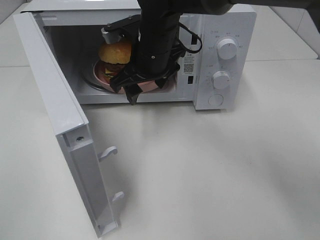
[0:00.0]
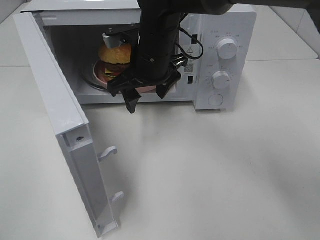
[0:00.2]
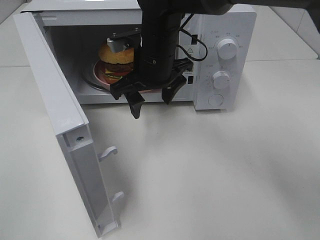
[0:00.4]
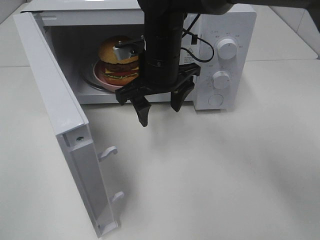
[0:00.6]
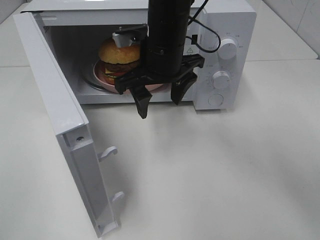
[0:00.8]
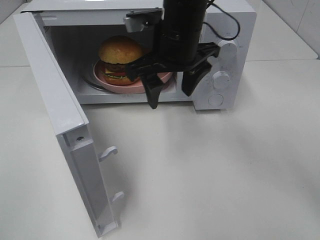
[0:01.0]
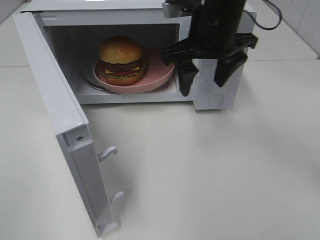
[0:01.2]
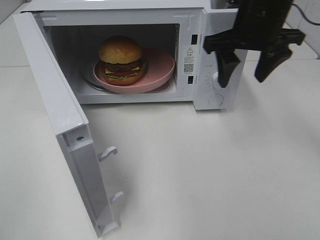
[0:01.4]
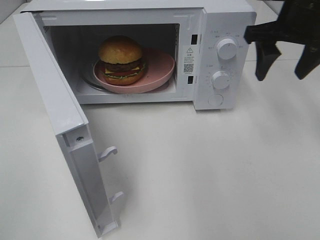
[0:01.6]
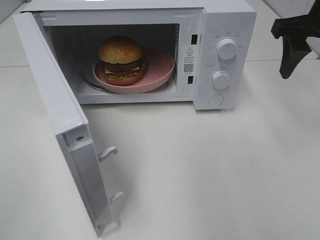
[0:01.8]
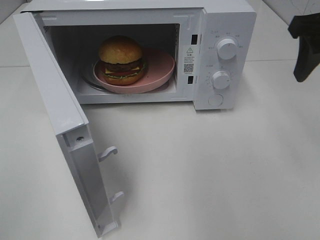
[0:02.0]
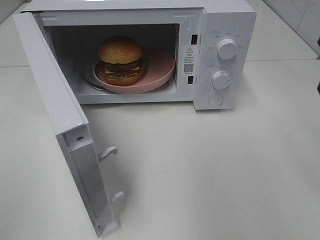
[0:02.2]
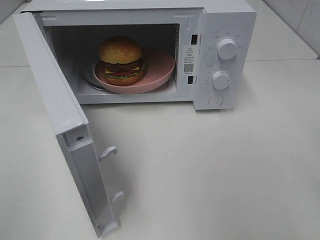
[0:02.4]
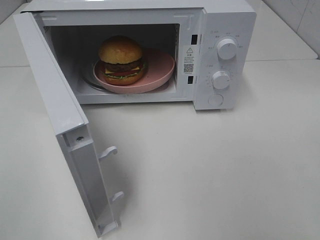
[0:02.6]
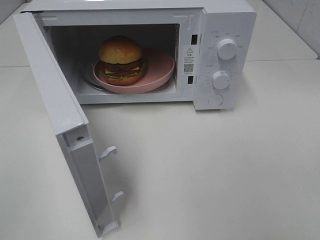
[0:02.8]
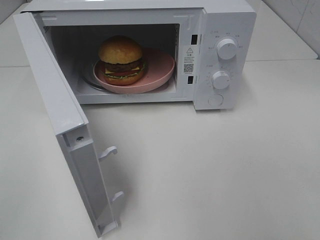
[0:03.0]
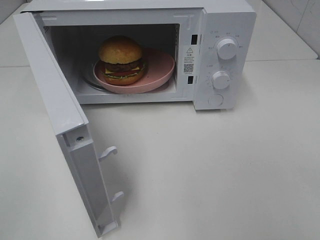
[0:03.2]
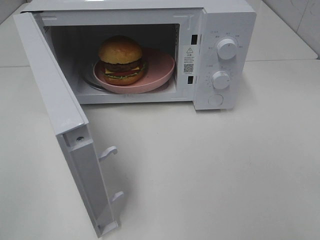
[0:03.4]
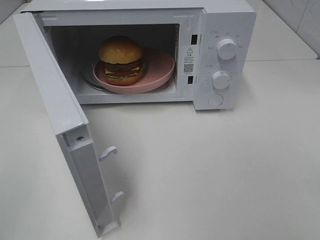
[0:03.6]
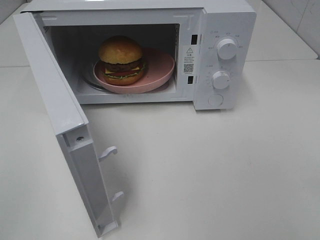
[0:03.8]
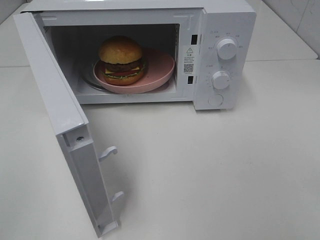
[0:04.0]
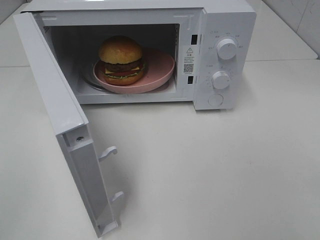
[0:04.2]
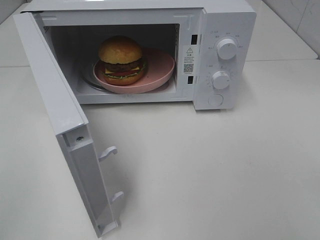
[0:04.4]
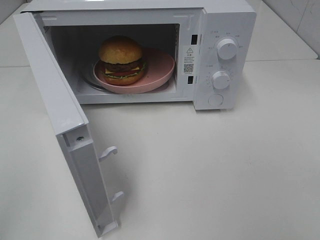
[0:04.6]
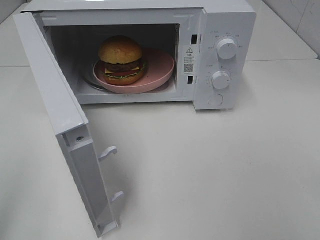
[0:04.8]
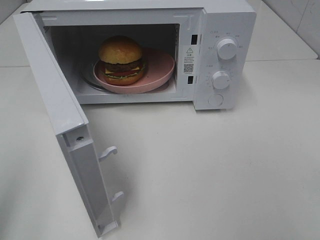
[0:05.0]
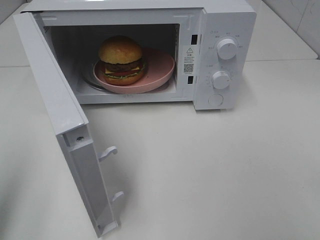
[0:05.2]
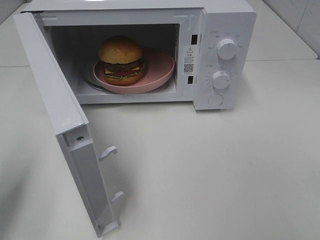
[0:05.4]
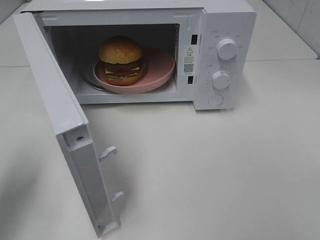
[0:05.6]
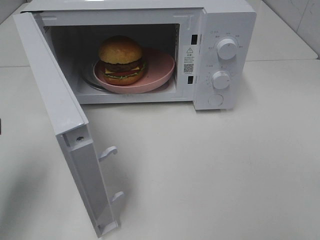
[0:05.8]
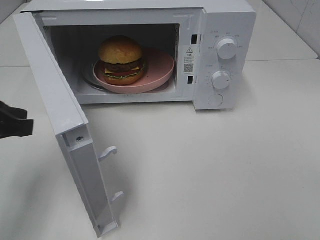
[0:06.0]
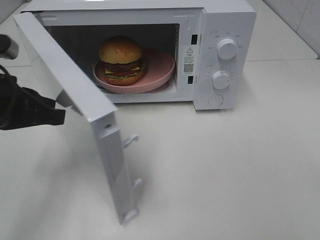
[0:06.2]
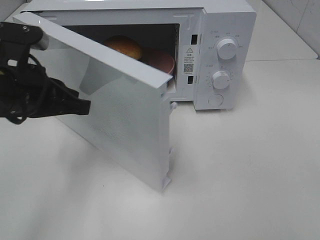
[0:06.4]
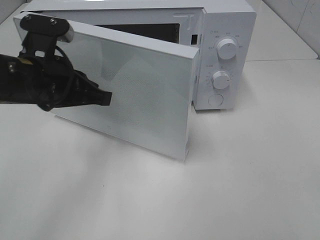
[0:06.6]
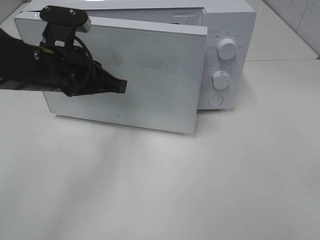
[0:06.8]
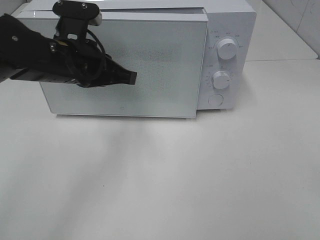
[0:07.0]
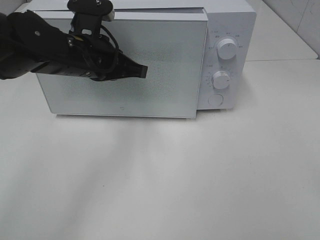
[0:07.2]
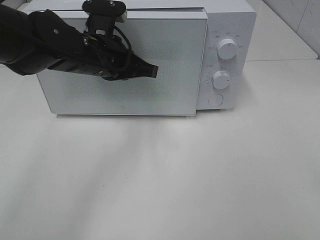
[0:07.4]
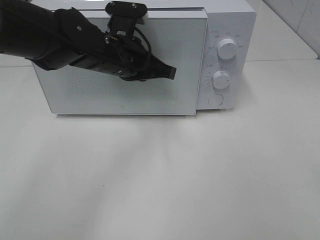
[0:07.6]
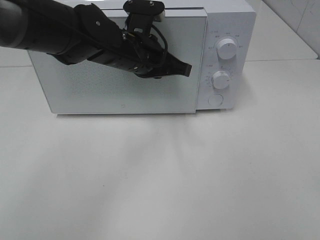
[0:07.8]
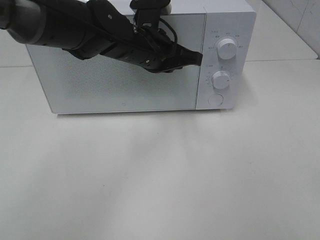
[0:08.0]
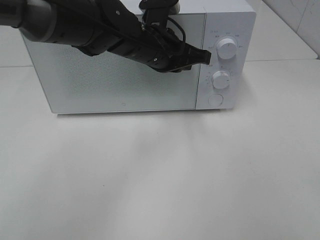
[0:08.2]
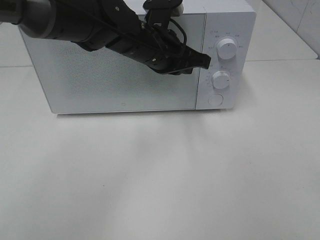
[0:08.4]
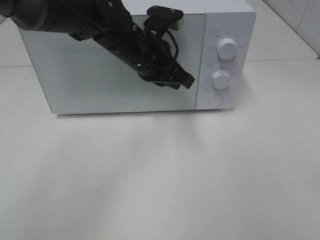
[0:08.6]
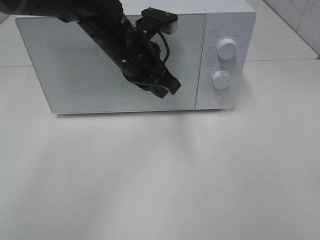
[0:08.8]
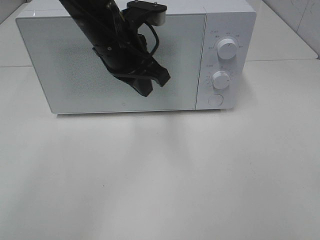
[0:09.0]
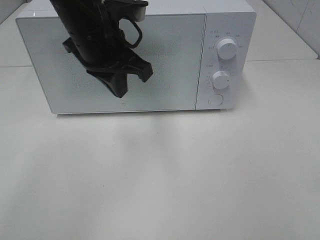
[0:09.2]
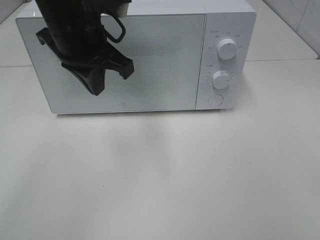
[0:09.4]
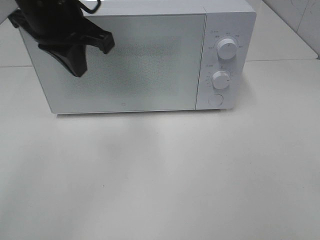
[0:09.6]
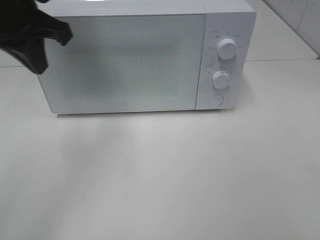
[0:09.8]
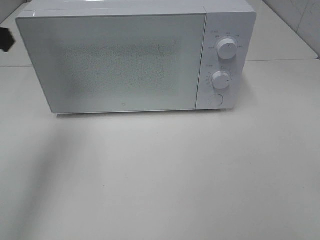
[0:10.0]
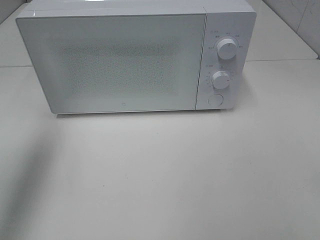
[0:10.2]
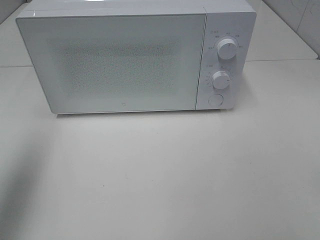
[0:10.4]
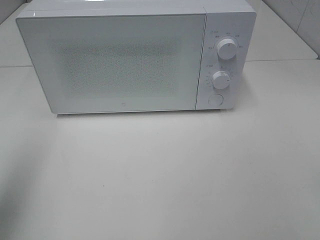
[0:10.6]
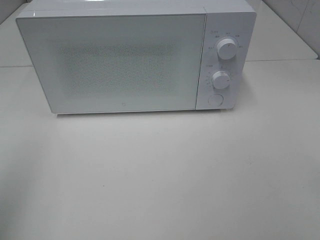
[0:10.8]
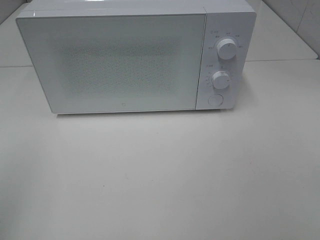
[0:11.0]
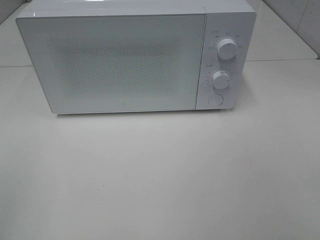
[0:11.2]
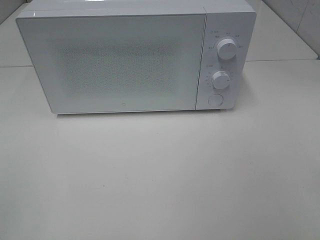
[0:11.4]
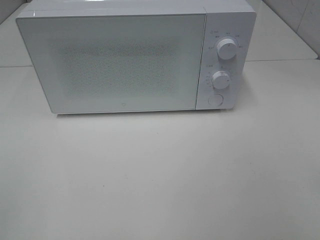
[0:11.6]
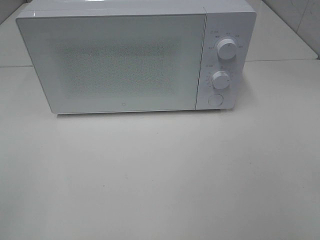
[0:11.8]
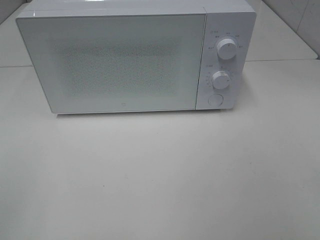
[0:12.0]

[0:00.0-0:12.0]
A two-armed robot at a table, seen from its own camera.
Task of the whole recording: Heat the burger.
Step, 0:00.0 to 0:08.2: Left hand: close the microwave door.
0:00.0 to 0:01.6: The right gripper shifts roughly 25 cm to the right.
0:01.6 to 0:03.0: The right gripper moves backward, roughly 30 cm.
0:04.4 to 0:06.0: The left gripper is displaced forward by approximately 20 cm.
0:06.0 to 0:07.6: The left gripper travels to the right and forward by roughly 25 cm.
0:07.6 to 0:09.0: The left gripper changes place by roughly 5 cm.
0:09.0 to 0:10.4: The left gripper heads to the left and backward, covering about 30 cm.
0:10.4 to 0:12.0: The left gripper shifts some 20 cm backward.

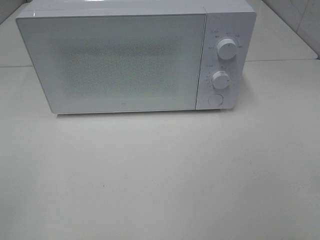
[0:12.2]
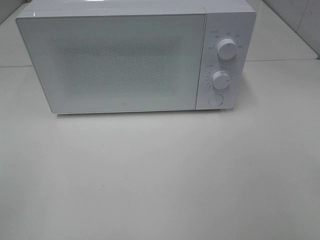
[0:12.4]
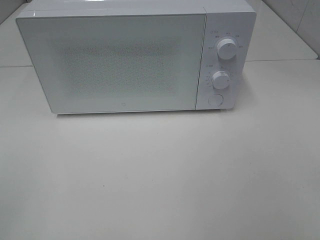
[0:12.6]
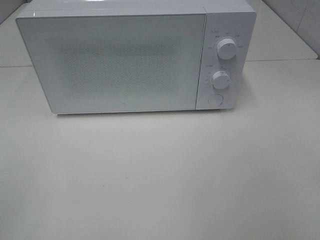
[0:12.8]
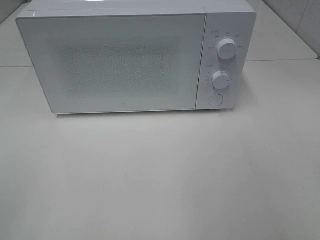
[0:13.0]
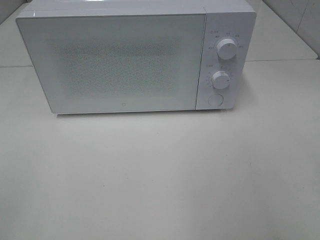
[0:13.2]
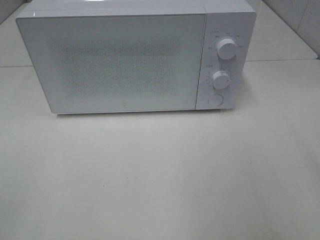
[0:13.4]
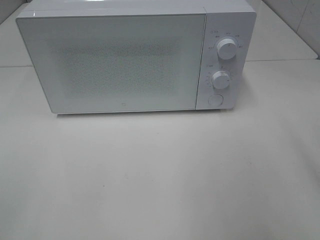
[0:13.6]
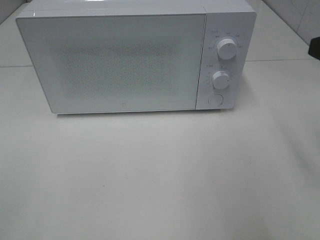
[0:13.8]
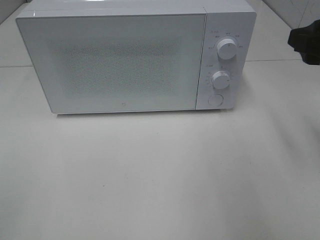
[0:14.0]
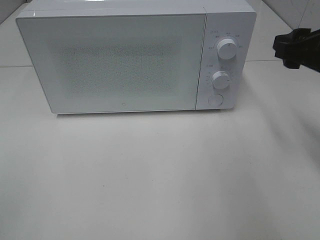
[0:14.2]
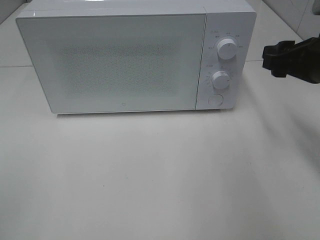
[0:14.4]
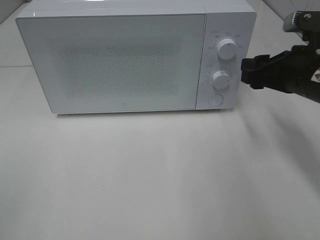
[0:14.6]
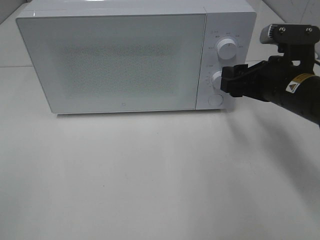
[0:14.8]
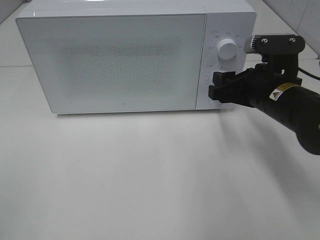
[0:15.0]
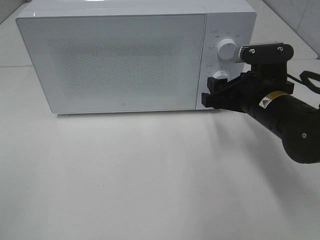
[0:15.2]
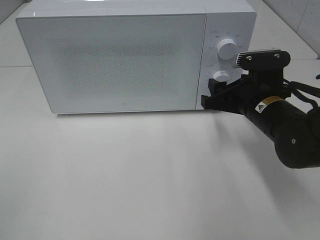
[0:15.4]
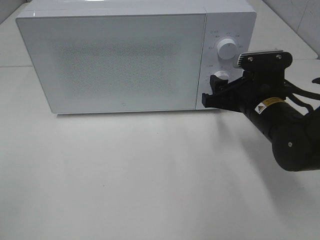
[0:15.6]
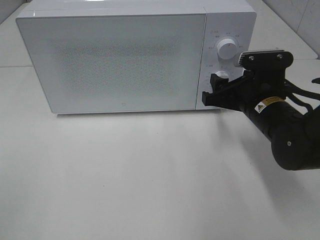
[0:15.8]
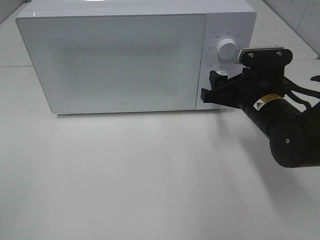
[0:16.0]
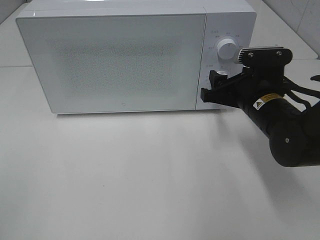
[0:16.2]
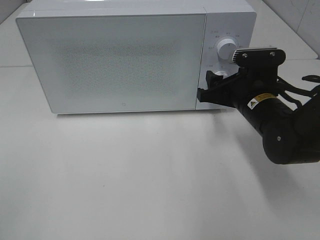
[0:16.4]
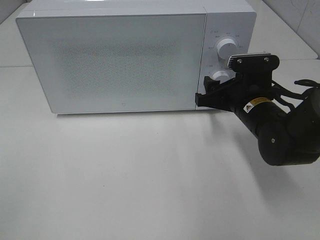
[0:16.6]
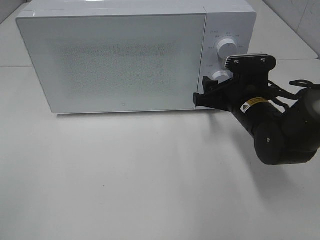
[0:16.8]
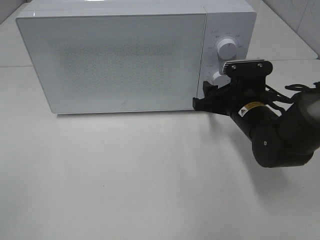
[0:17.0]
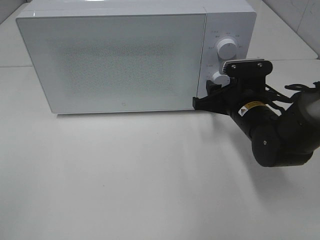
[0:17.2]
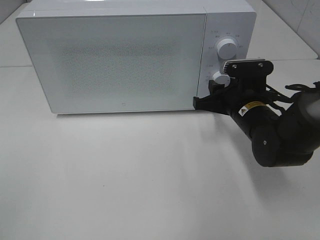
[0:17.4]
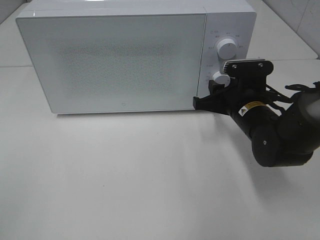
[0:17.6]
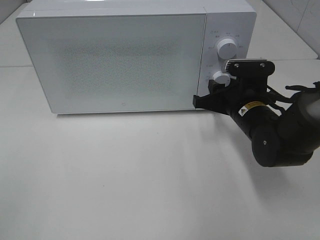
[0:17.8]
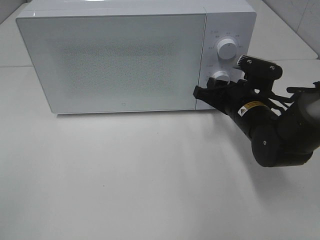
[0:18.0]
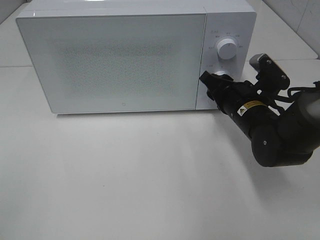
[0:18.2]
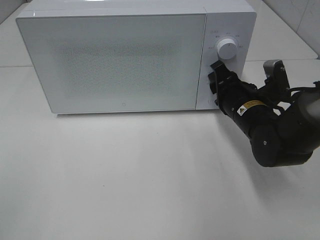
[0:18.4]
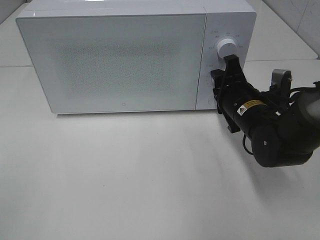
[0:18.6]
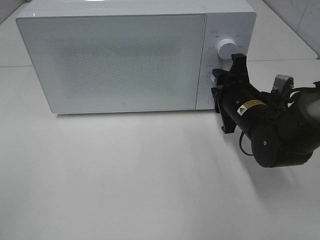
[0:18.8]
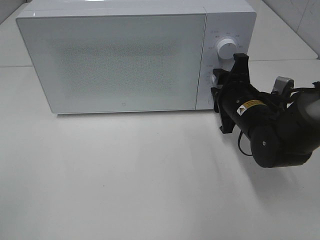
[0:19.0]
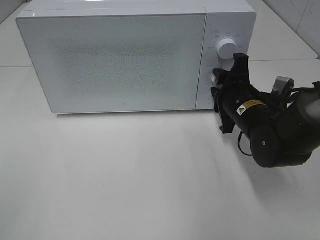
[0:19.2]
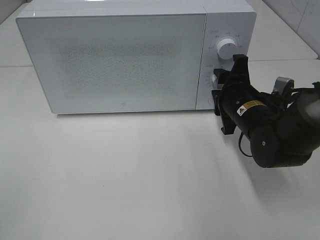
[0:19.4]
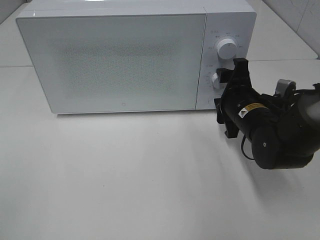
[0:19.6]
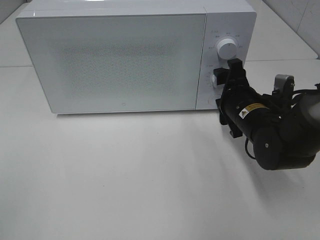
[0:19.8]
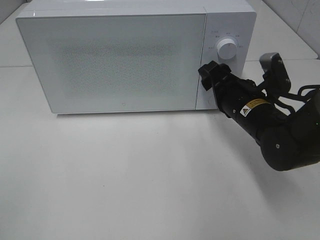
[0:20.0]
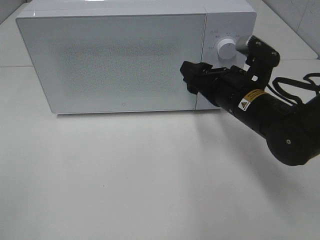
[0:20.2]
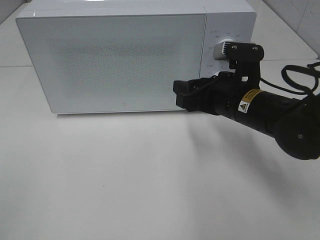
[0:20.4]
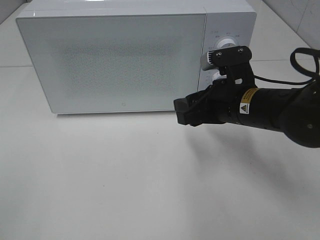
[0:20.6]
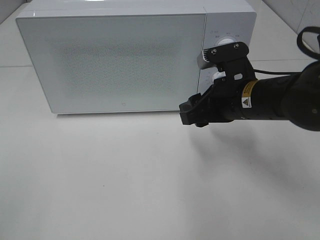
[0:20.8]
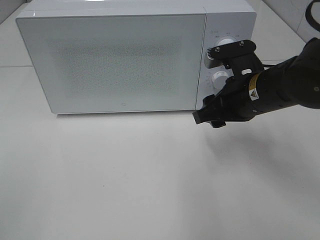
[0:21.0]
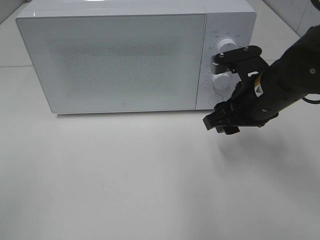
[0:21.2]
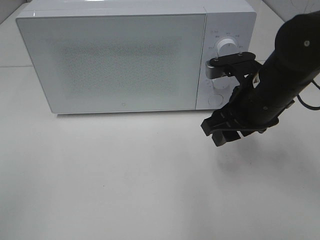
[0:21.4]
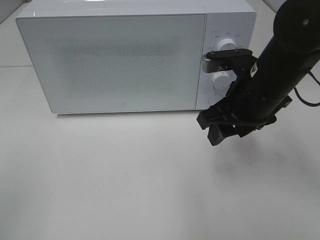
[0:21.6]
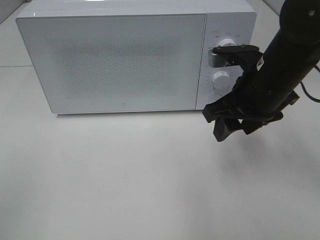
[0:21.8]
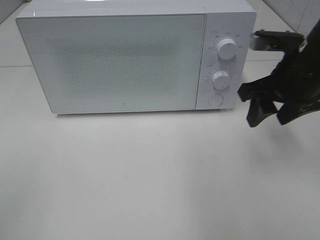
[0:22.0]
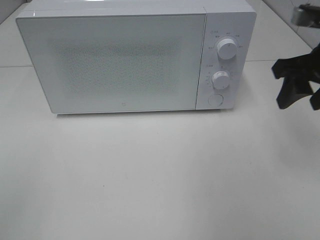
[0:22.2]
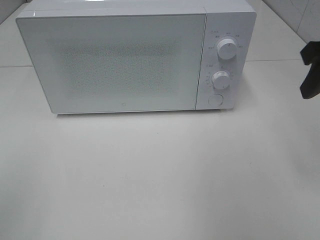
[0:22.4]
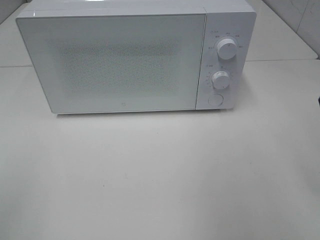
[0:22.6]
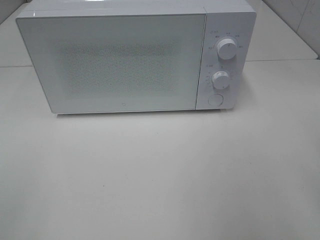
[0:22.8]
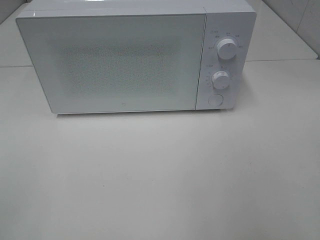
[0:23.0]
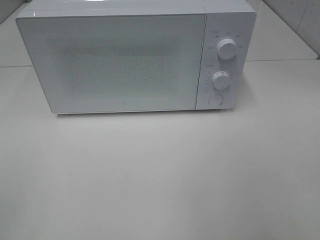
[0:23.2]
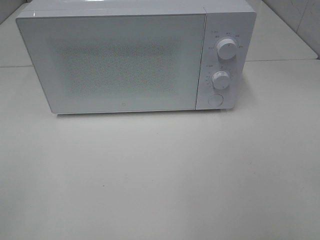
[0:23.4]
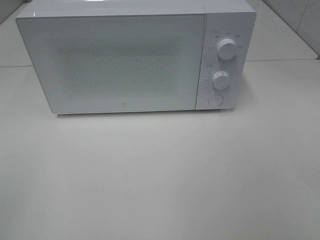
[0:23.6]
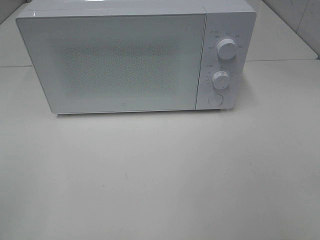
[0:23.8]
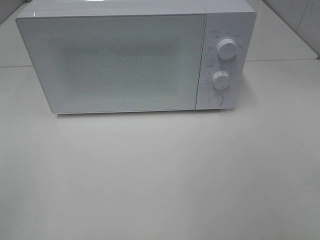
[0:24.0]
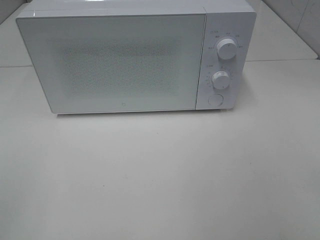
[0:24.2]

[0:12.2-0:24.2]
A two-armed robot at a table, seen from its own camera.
Task of the whole recording: Heat the burger.
Step, 0:12.2 to 0:19.4: Right hand: twist timer button.
0:13.8 to 0:15.2: The right gripper is displaced downward, forward and to the left by roughly 20 cm.
0:15.2 to 0:16.6: The grippers move only a little.
0:16.6 to 0:18.2: The right gripper closes up.
0:18.2 to 0:19.8: The right gripper opens its fingers.
0:19.8 to 0:21.2: The right gripper travels upward by roughly 5 cm.
0:21.2 to 0:22.6: The right gripper shifts approximately 20 cm upward, to the right and backward.
